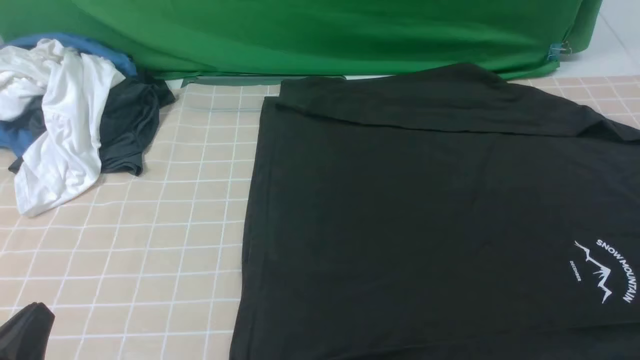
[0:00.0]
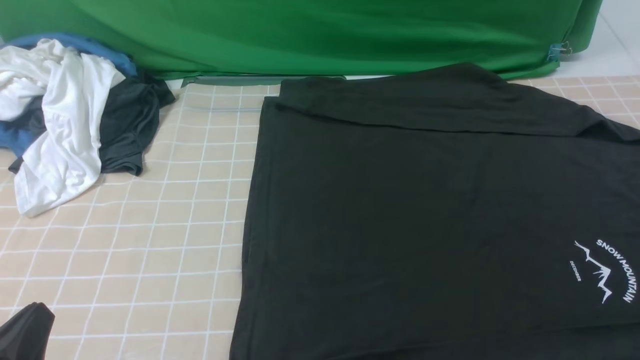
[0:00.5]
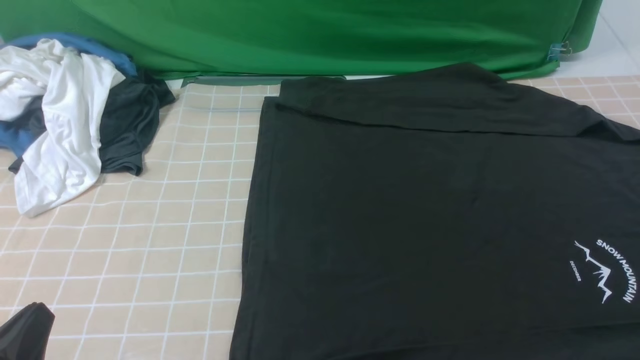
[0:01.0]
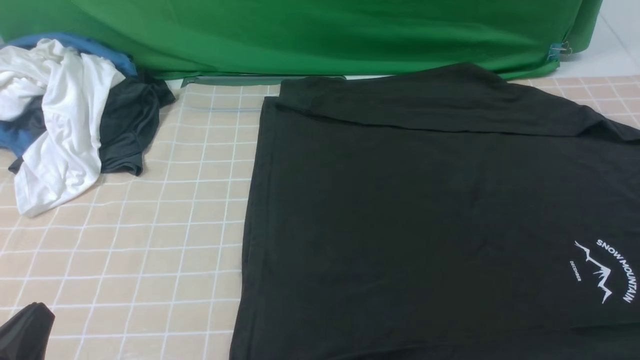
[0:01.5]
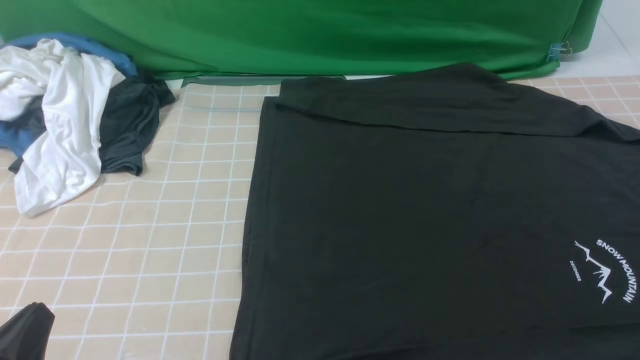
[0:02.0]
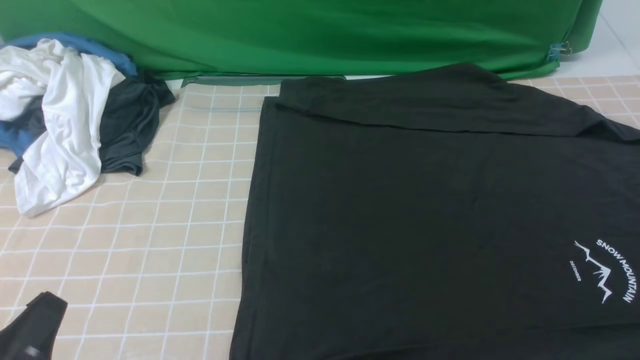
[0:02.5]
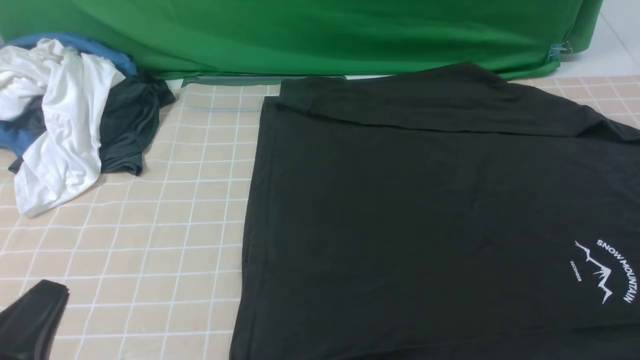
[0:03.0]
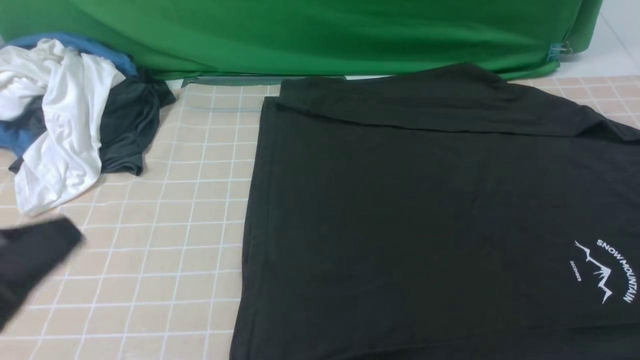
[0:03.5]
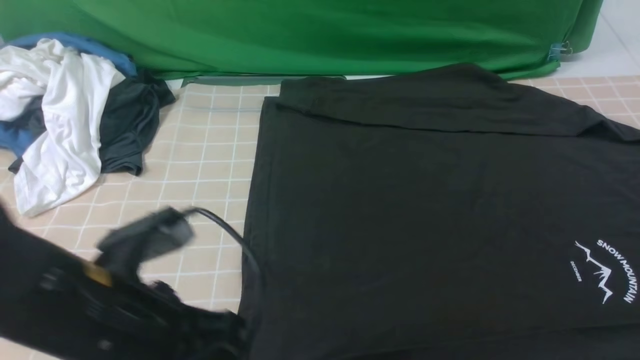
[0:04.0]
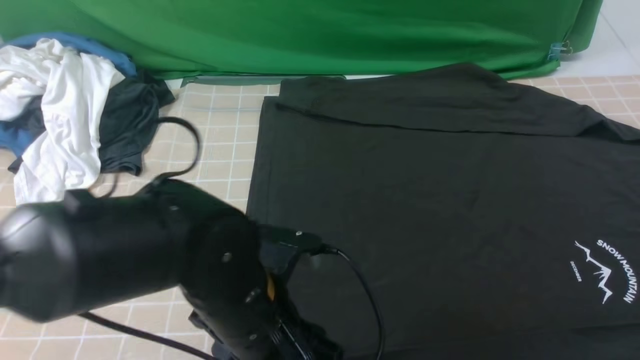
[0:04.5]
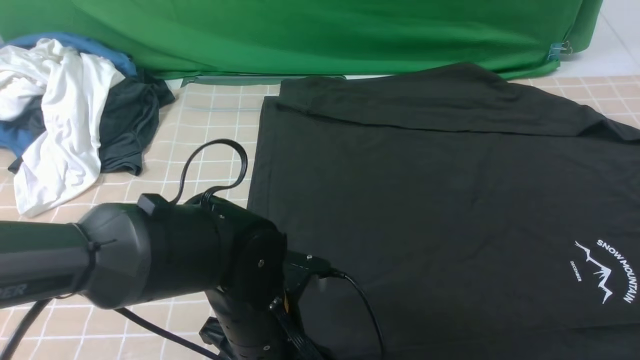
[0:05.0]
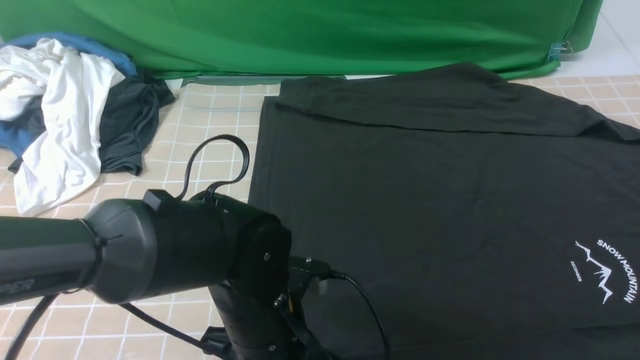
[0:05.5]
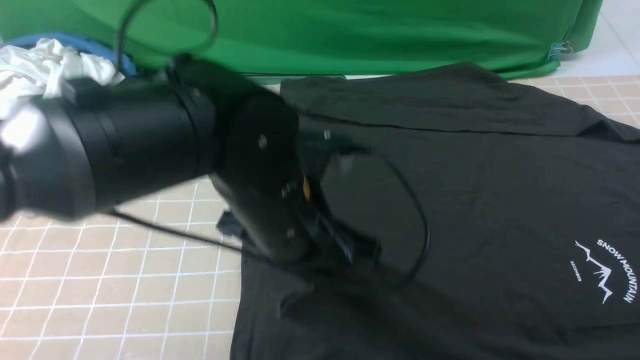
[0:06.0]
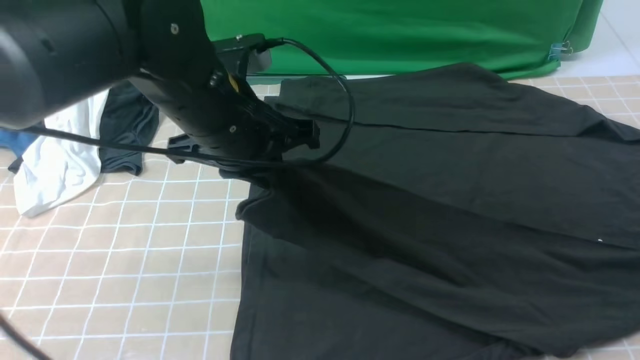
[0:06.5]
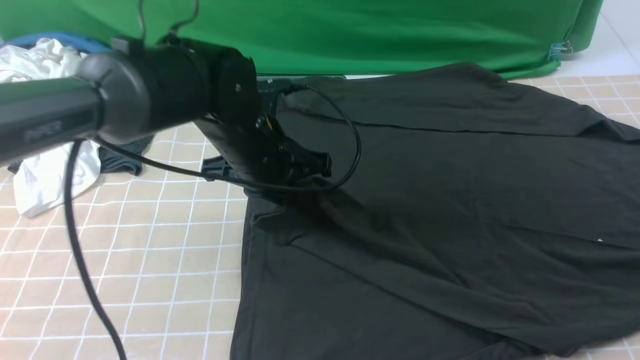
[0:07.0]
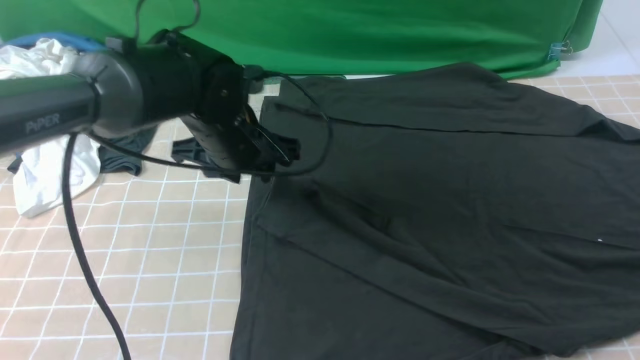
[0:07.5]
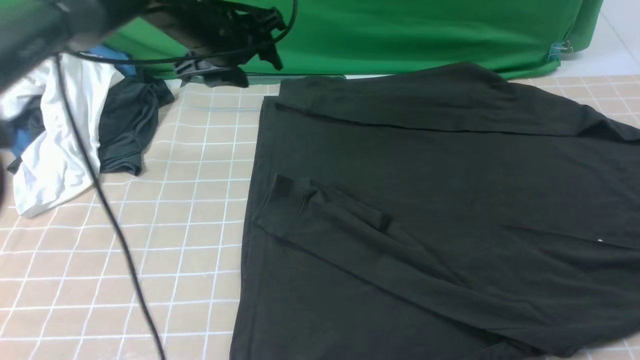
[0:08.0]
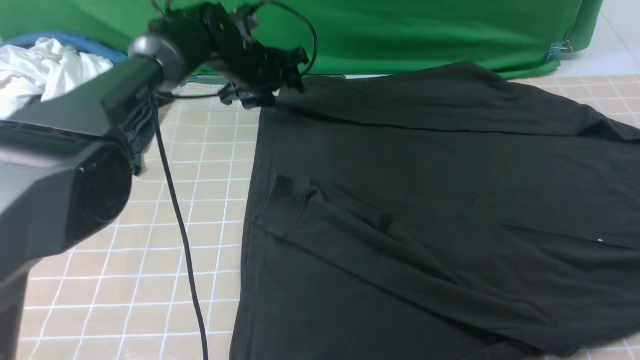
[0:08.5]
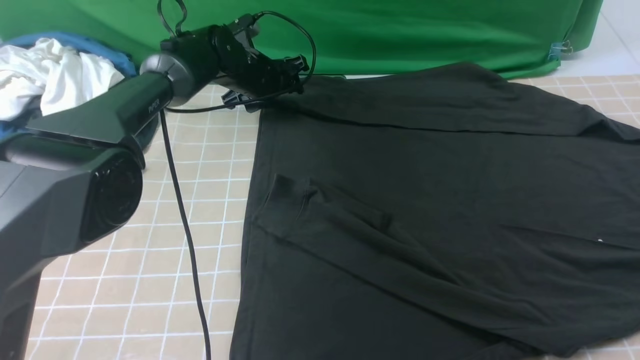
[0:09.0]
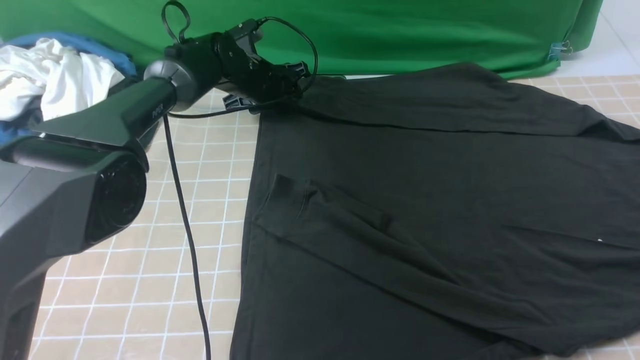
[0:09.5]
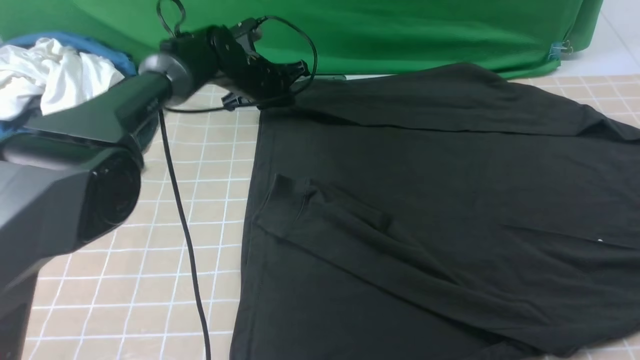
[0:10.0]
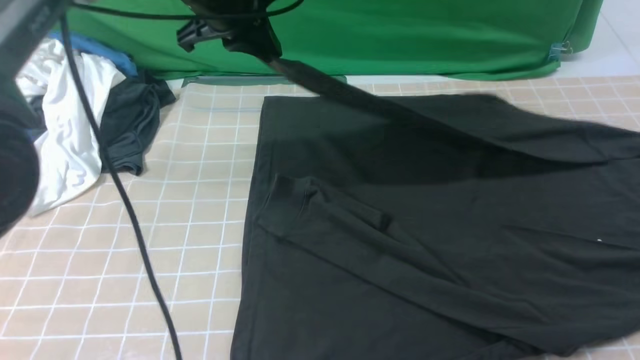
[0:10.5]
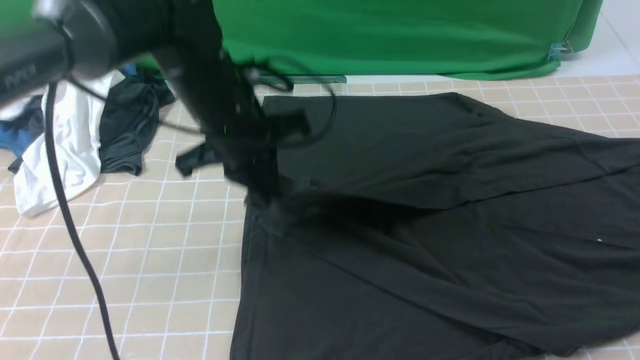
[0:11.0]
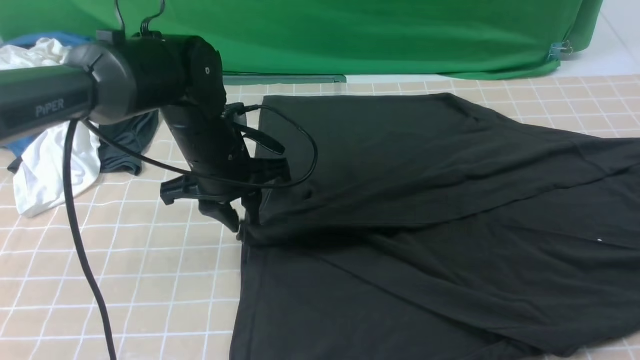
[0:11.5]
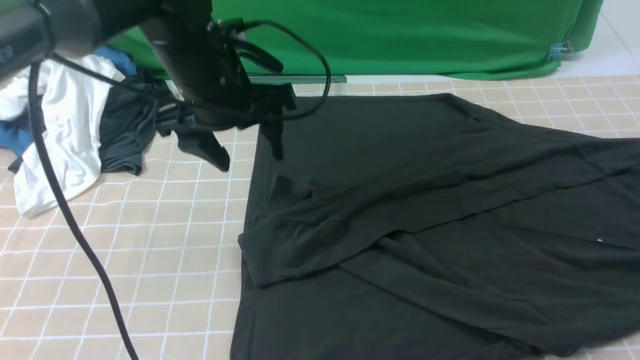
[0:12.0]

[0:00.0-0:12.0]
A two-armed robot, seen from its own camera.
Step, 0:00.0 to 0:05.0: use the left arm to clamp the cuff closest to it.
Step, 0:05.5 to 0:07.5: use the left arm to drag and place the cuff at the centered position on the left edge of the fabric.
Step, 0:08.0 to 0:09.5: use the left arm to clamp the cuff farthest from it.
Step, 0:10.0 to 0:11.5: use the left arm to drag and drop the cuff onto the cuff closest to the left arm.
0:00.0 to 0:02.0: Both grippers stay about where they are.
0:02.0 to 0:04.0: The right gripper goes some 15 cm upward and forward, and closes its fingers; the left gripper goes roughly 15 cm to the right, forward and upward.
0:04.0 to 0:06.0: The left gripper goes some 15 cm to the right and forward, moves approximately 10 cm downward and comes back, and opens, then closes again.
0:06.0 to 0:08.0: The left gripper is displaced forward by roughly 25 cm, and opens.
0:08.0 to 0:10.0: The left gripper travels downward and forward by some 10 cm, and closes its fingers.
0:10.0 to 0:12.0: The left gripper moves backward and upward, roughly 20 cm, and opens.

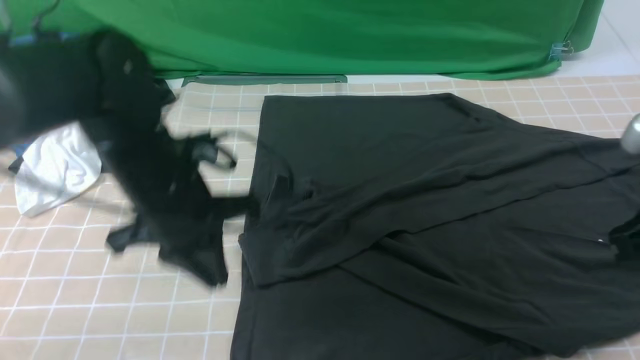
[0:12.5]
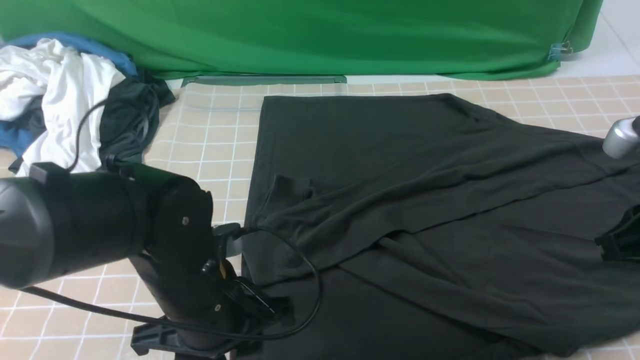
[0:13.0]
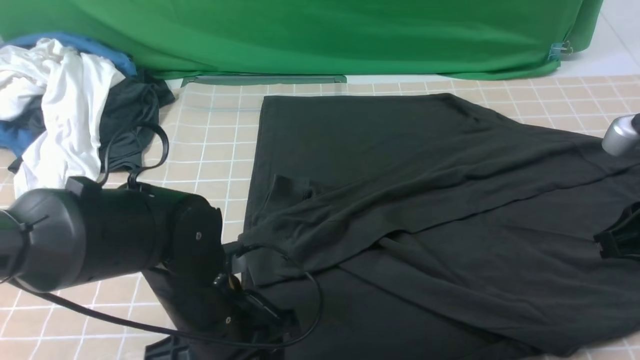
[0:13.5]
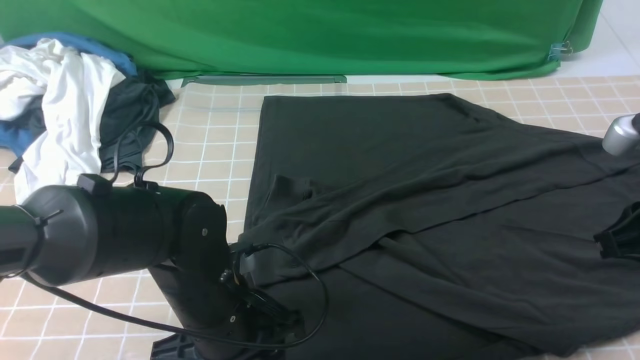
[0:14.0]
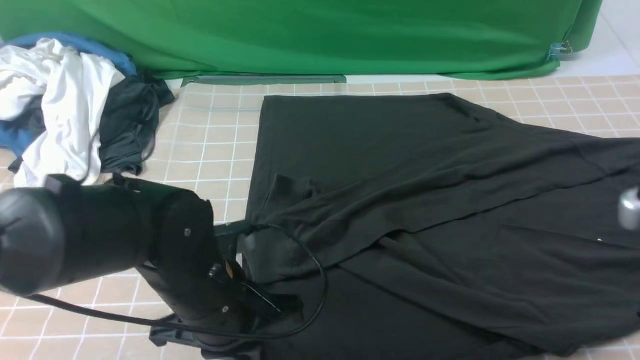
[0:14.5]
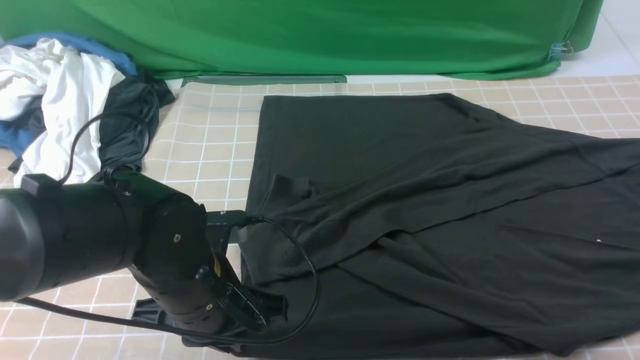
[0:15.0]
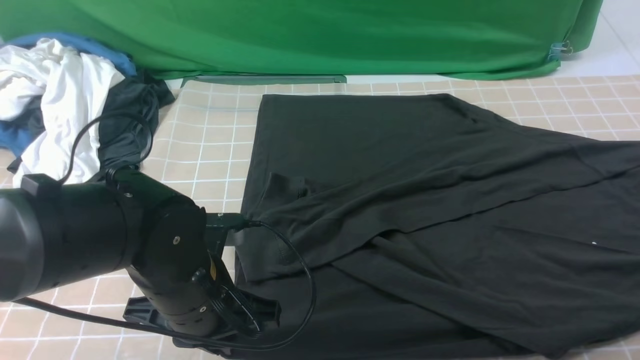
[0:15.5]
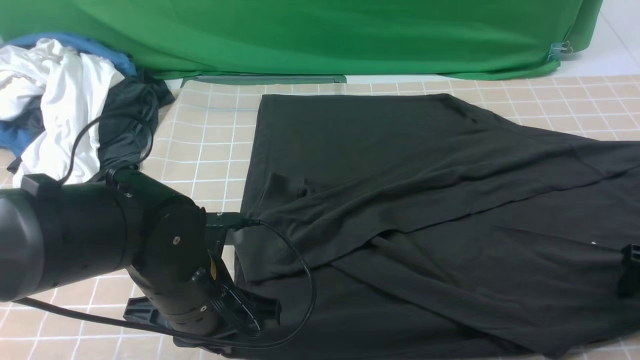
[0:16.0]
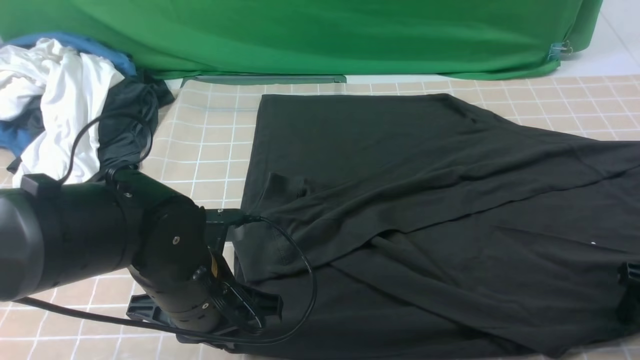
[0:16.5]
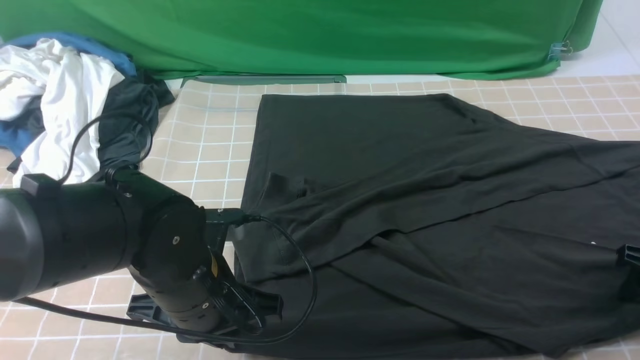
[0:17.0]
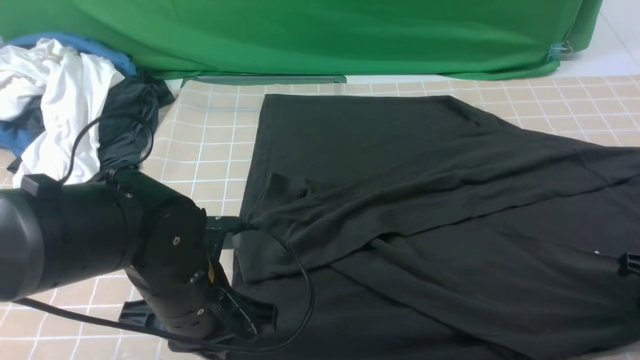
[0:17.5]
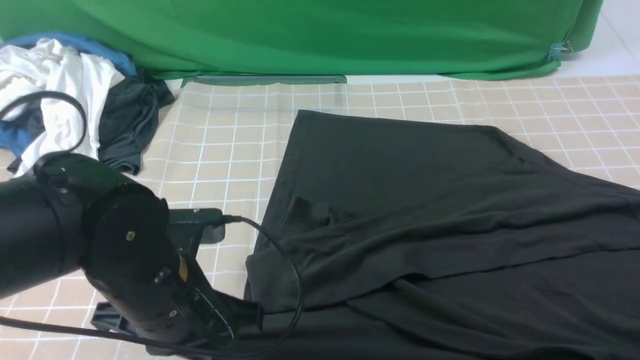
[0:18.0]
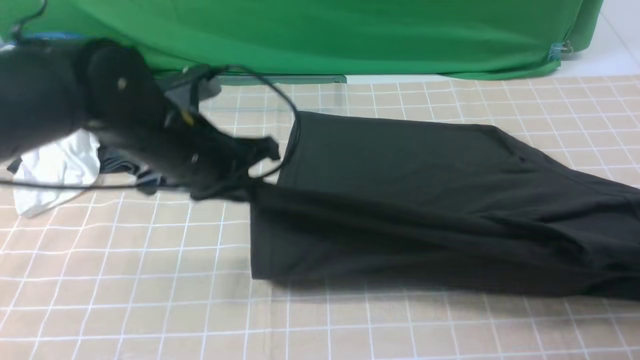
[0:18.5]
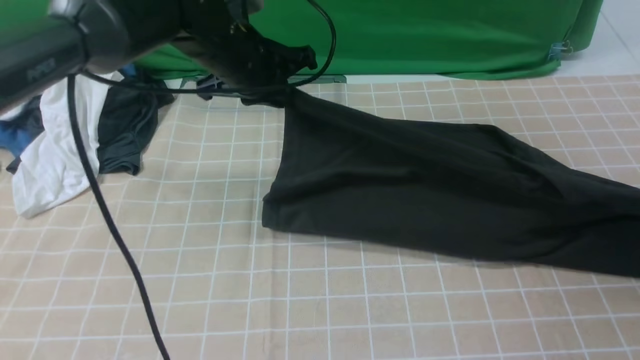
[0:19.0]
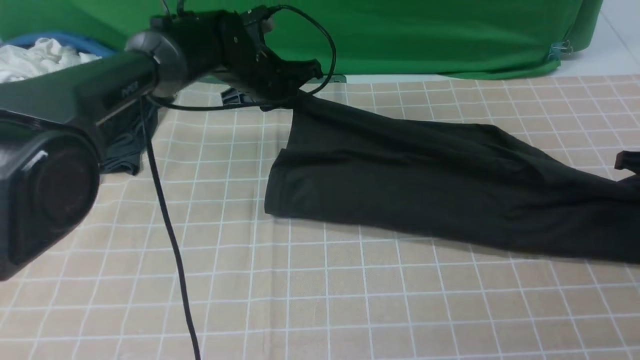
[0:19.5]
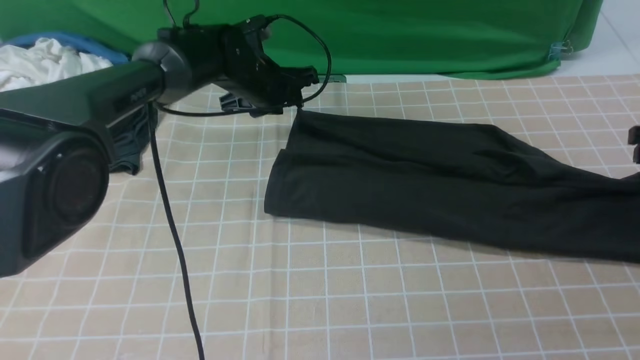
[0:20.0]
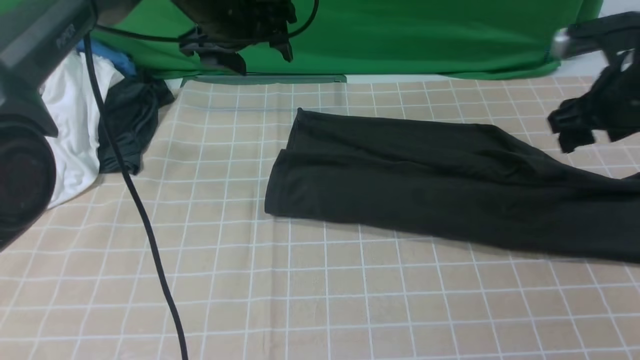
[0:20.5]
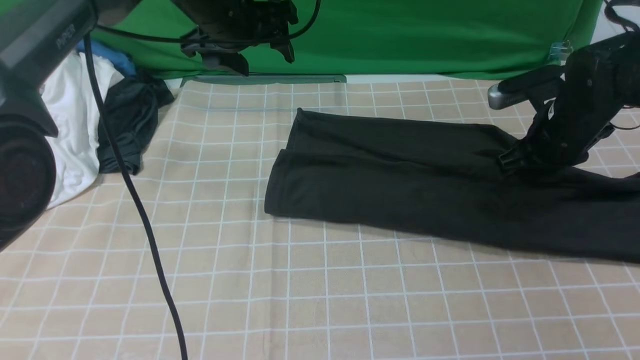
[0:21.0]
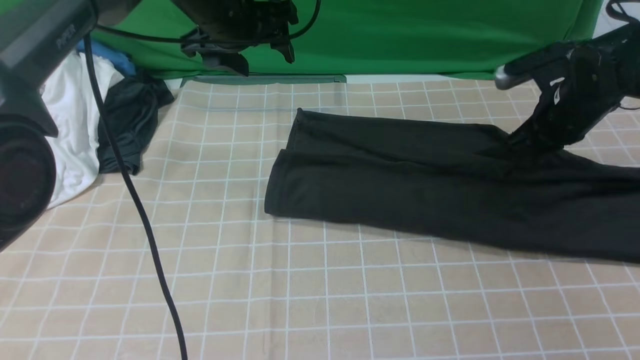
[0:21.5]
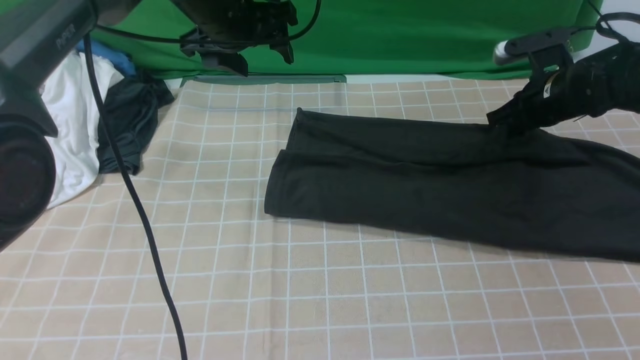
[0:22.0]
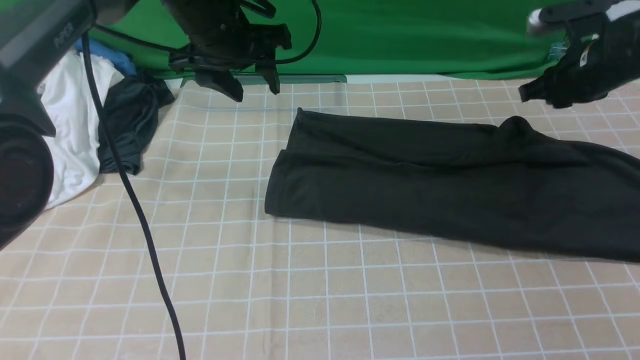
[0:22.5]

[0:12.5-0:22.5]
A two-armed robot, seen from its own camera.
Step, 0:12.5 to 0:17.0: use both arms simultaneously to clamp the lower edge of the clothing fabric.
0:12.5 to 0:14.5: The left gripper is displaced backward and downward by approximately 10 cm, and opens, then closes again.
0:14.5 to 0:16.5: The right gripper moves downward, to the right and forward, about 15 cm, and opens its fingers.
0:16.5 to 0:18.5: The left gripper goes about 10 cm forward and upward, while the right gripper shifts some 5 cm upward, and closes up.
0:18.5 to 0:20.5: The left gripper goes some 15 cm forward, and opens; the right gripper shifts approximately 15 cm forward and to the left, and opens.
0:20.5 to 0:22.5: The left gripper closes up; the right gripper travels forward by roughly 5 cm, and closes its fingers.
